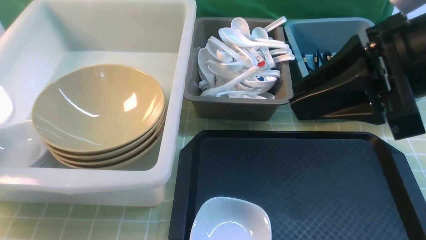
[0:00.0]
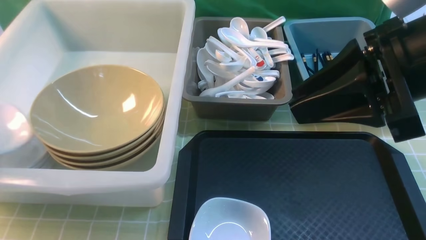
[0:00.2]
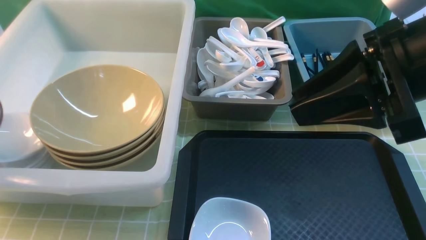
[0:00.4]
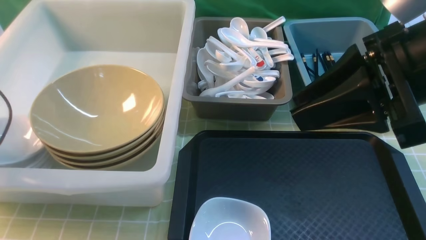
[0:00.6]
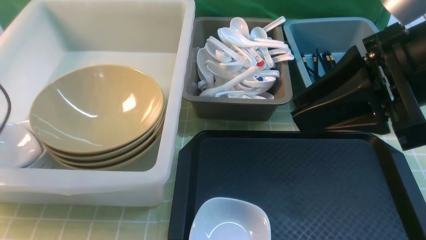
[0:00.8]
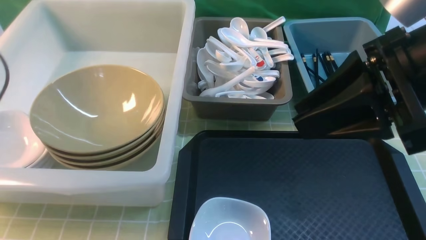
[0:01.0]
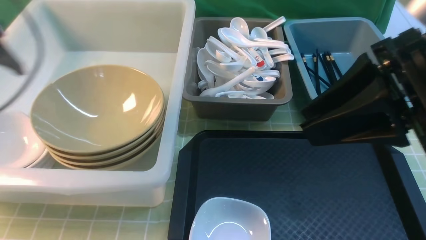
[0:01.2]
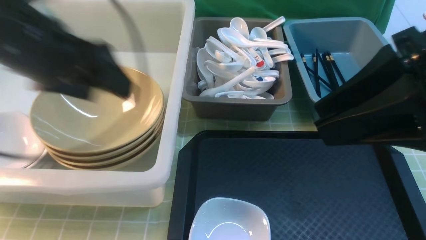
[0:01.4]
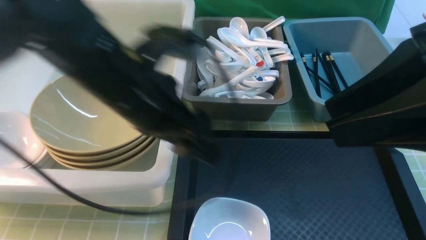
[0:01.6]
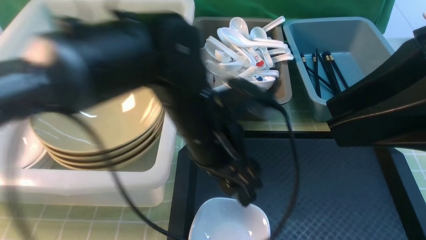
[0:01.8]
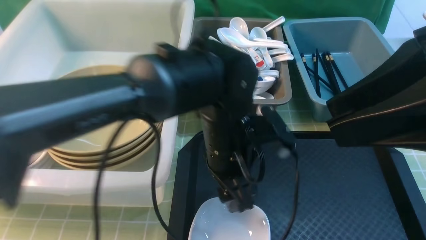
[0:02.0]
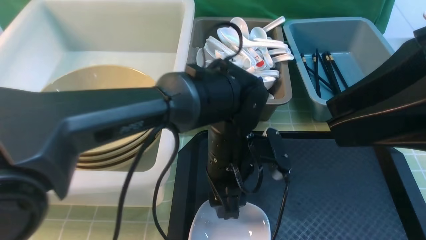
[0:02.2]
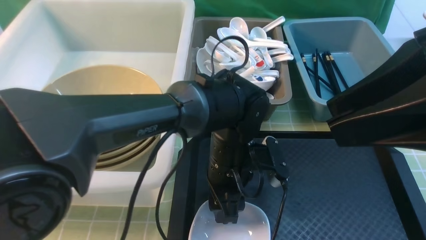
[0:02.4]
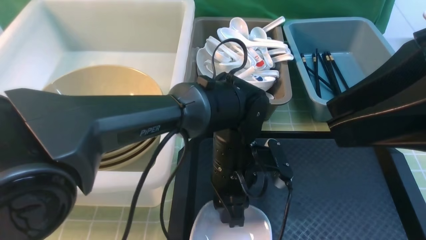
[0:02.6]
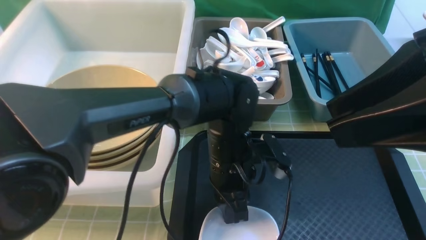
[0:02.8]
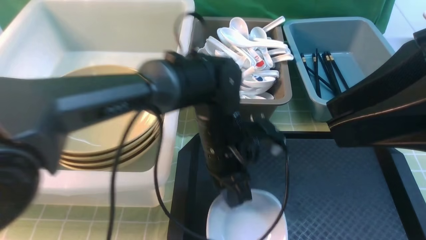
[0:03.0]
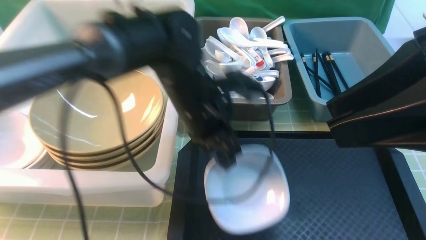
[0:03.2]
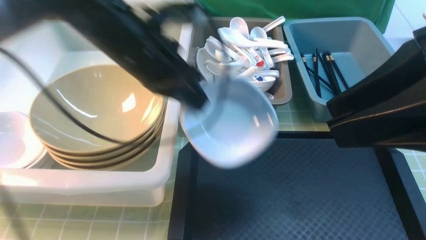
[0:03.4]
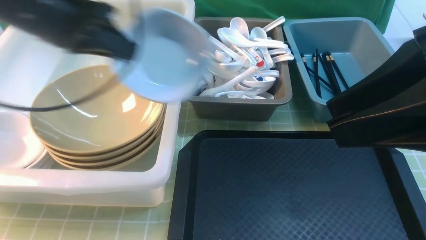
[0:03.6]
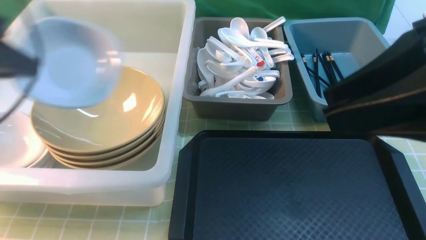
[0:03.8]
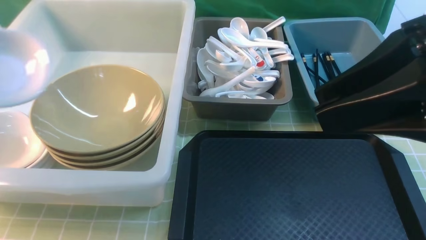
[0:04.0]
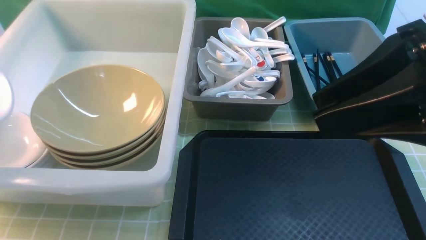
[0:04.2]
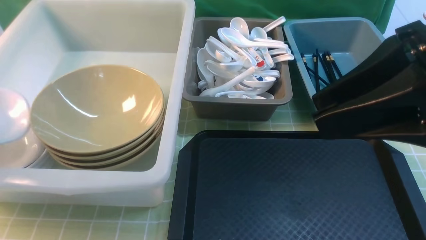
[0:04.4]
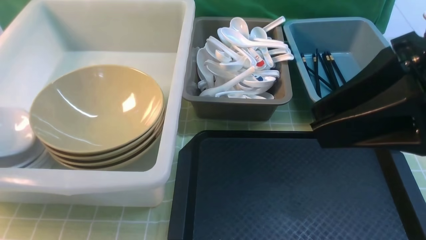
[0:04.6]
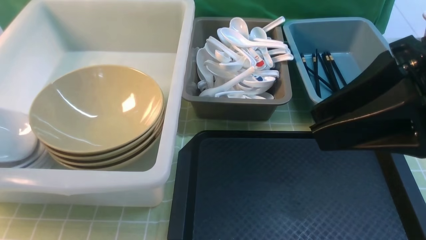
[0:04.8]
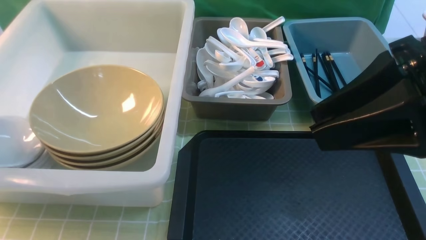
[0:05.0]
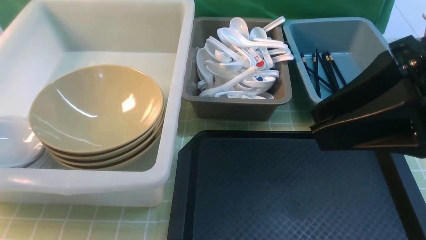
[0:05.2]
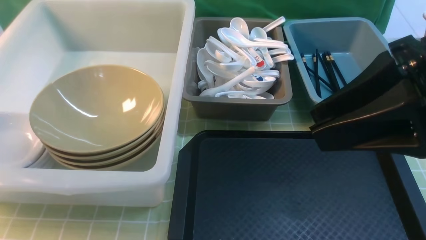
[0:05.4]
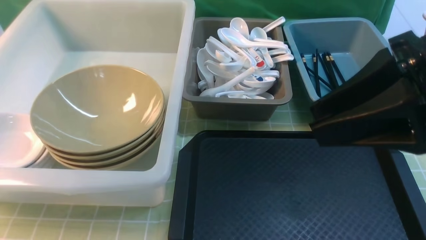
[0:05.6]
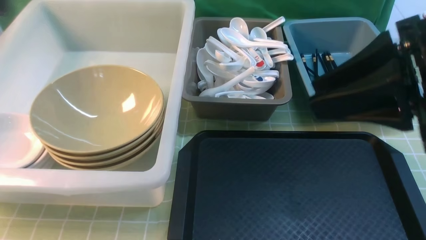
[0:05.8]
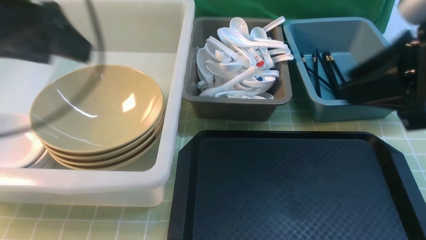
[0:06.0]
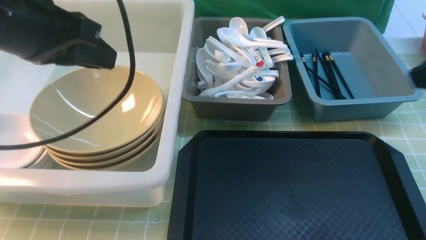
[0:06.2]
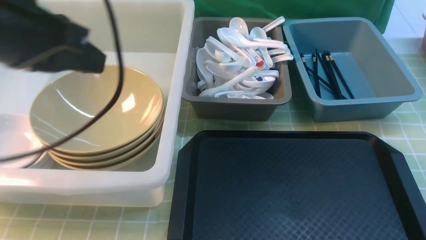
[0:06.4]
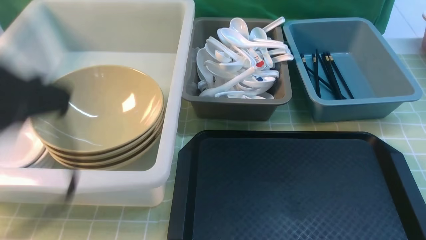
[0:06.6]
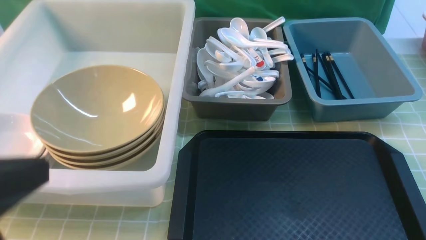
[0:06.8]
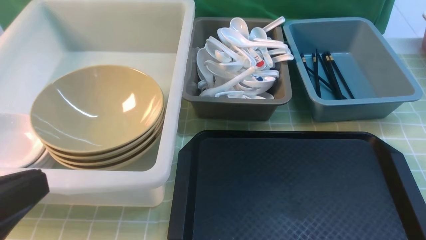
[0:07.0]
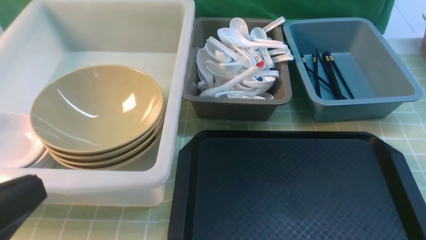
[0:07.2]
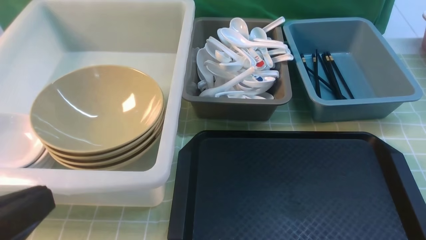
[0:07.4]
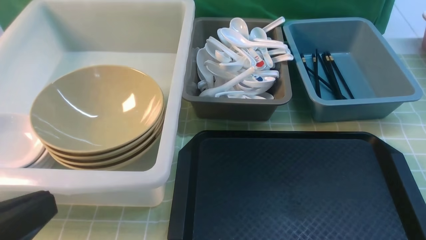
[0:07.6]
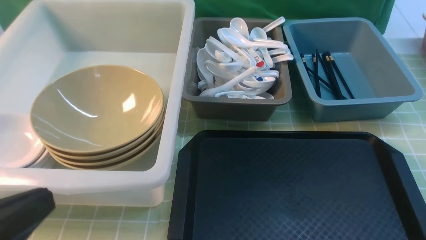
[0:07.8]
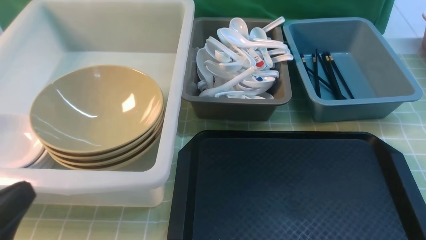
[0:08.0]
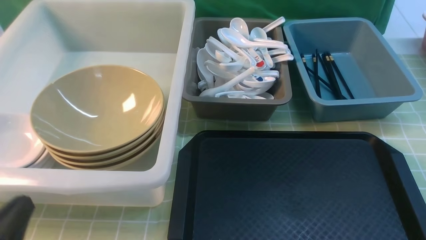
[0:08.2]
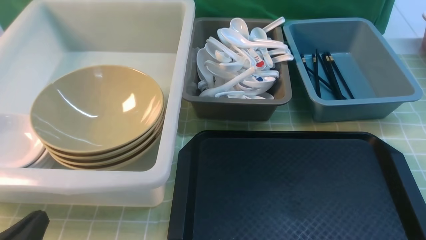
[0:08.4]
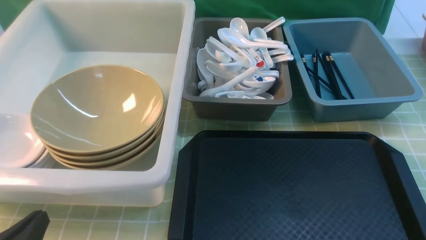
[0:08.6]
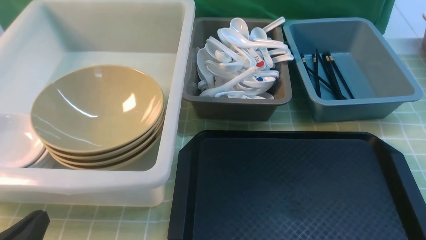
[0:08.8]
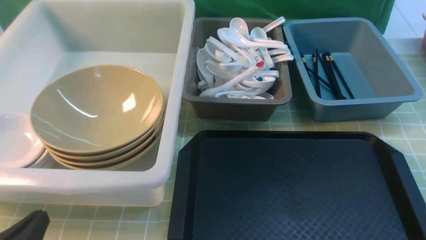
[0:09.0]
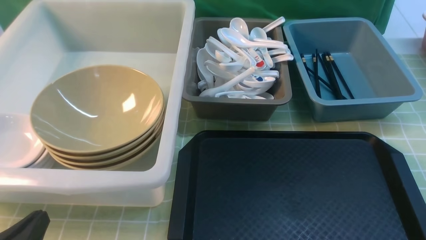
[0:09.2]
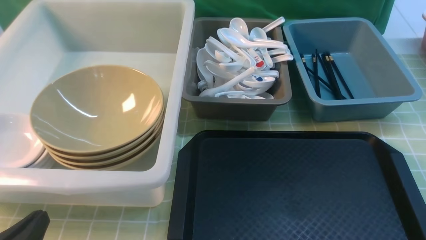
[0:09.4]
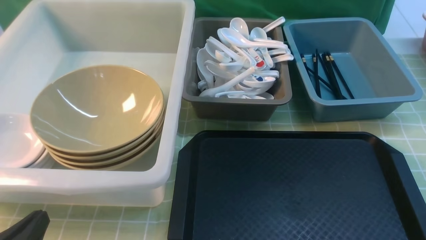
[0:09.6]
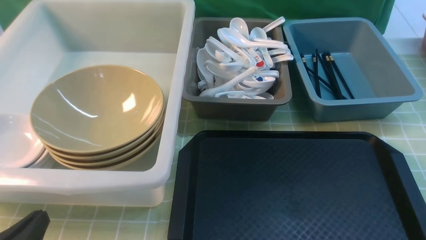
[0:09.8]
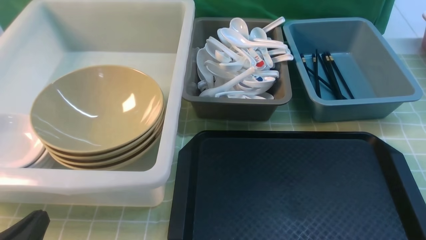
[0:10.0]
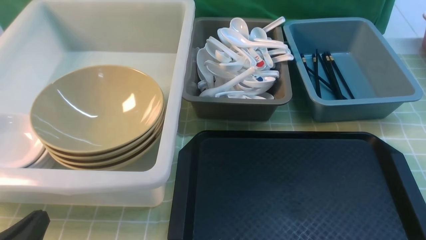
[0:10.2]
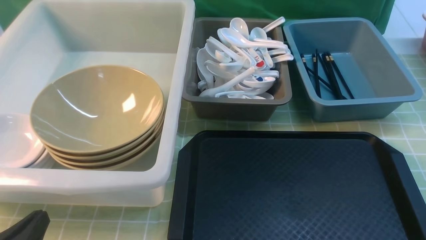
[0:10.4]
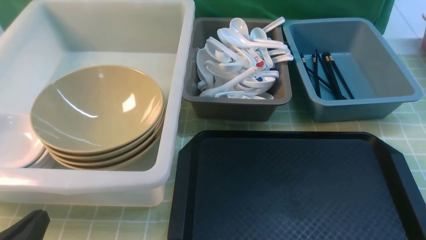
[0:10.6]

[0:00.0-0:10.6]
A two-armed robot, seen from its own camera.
Task of the whole recording: on green table put chopsticks spoon bowls plates into blue grey white boxes.
Step, 0:00.0 to 0:01.0: use the left arm to put the plate into the large storage box on the left.
Step, 0:01.2 to 0:03.0: use the left arm to grab the plate.
Step, 0:03.2 to 0:05.2: use the left arm to put the plate into the large storage box on the left.
0:00.0 to 0:01.6: The left gripper moves to the right, approximately 30 cm, and opens.
0:01.6 to 0:03.0: The left gripper is displaced downward and to the right by roughly 20 cm, and closes up.
0:03.0 to 0:04.6: The left gripper is displaced to the left by about 40 cm.
0:04.6 to 0:06.0: The left gripper shifts about 20 cm to the right and upward, and opens.
0:06.0 to 0:07.6: The left gripper travels backward and downward by some 25 cm, and closes, while the right gripper goes roughly 20 cm backward, downward and to the right, and closes.
0:07.6 to 0:09.0: The left gripper goes approximately 15 cm downward.

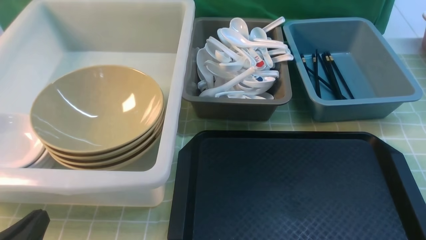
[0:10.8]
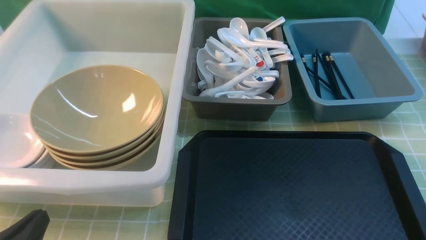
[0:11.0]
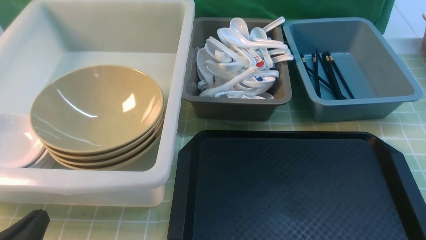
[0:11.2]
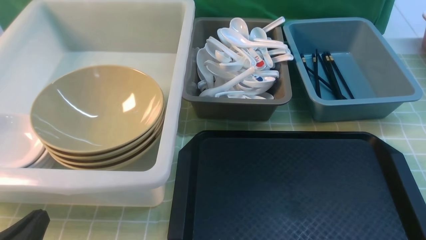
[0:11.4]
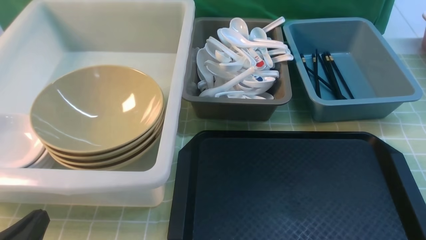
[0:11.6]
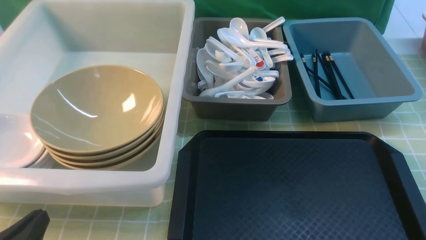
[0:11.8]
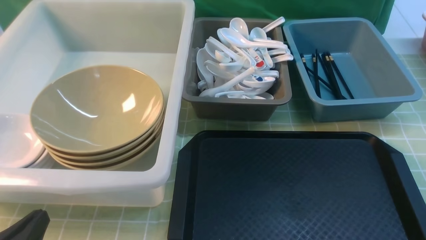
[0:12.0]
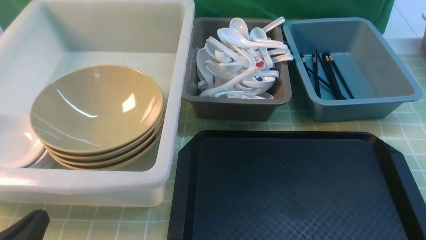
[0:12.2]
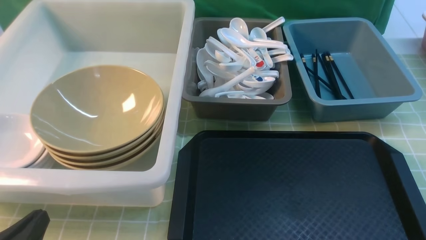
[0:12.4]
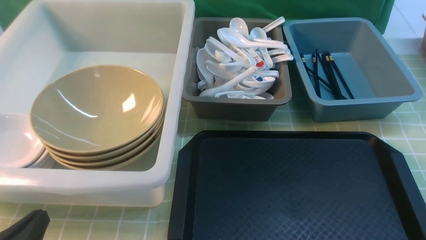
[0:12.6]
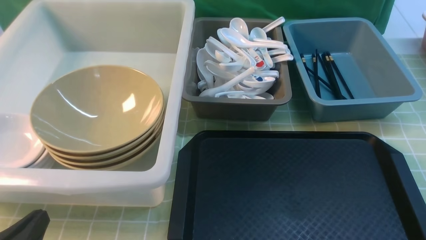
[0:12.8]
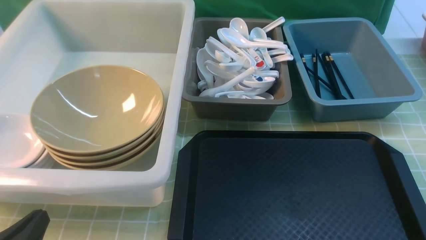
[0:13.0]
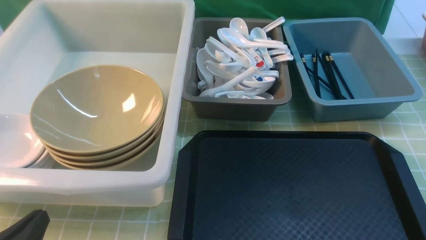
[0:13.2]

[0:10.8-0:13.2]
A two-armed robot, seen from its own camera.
Task of the whole recording: on green table put chopsticks spoon bowls plates into blue grey white boxes.
0:10.8 to 0:13.2: Both grippers stay about where they are.

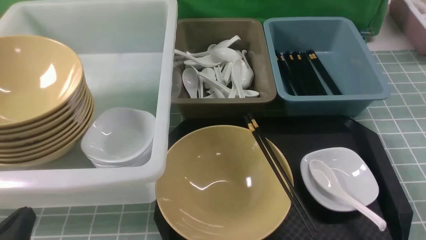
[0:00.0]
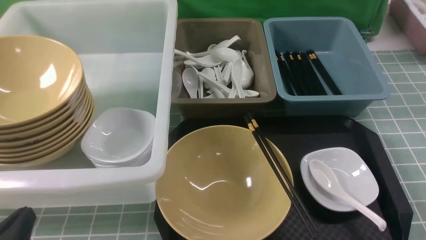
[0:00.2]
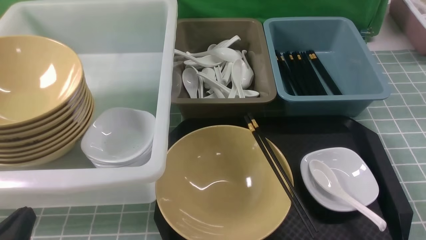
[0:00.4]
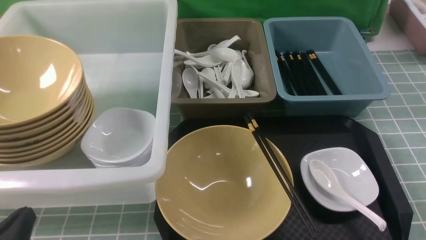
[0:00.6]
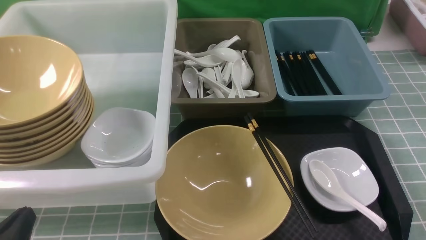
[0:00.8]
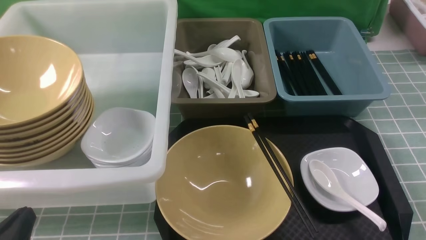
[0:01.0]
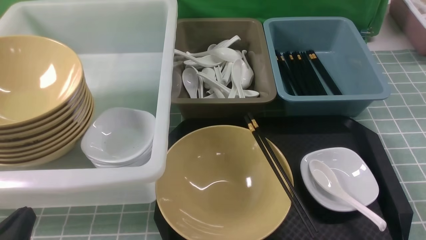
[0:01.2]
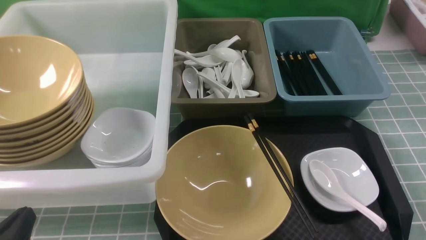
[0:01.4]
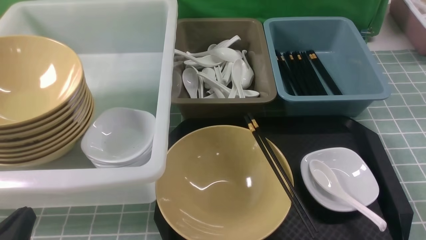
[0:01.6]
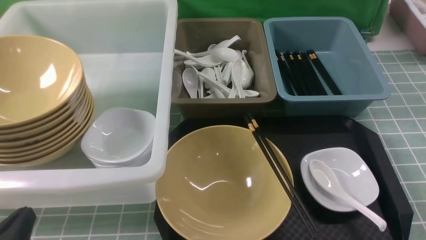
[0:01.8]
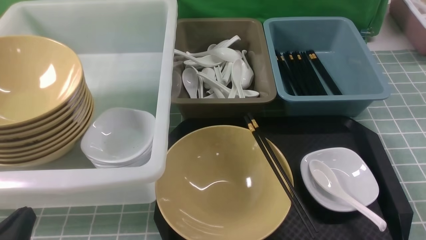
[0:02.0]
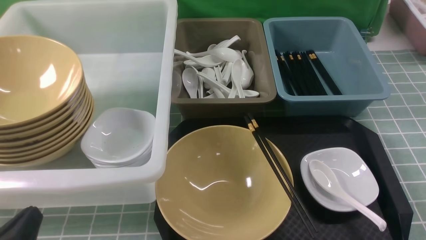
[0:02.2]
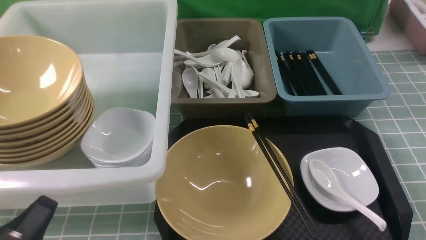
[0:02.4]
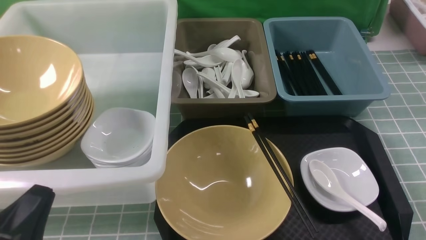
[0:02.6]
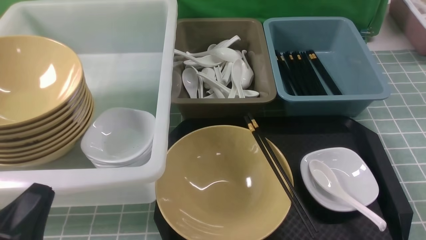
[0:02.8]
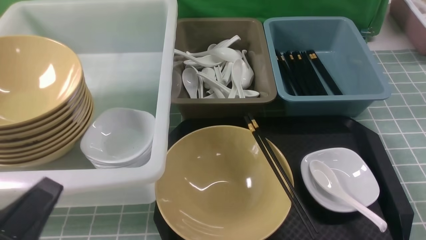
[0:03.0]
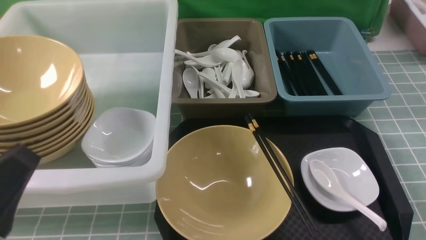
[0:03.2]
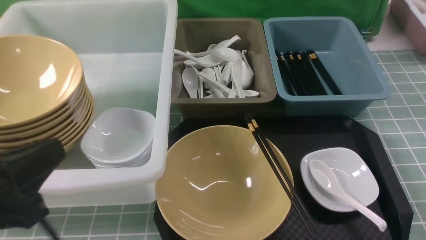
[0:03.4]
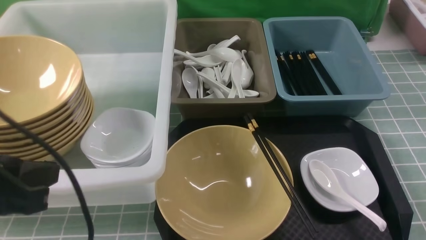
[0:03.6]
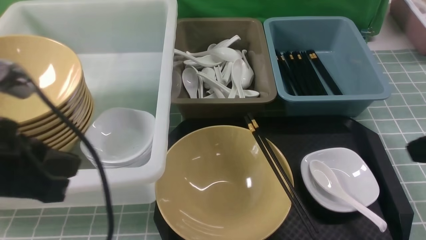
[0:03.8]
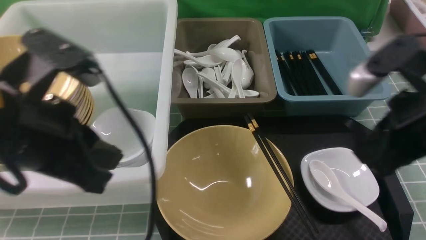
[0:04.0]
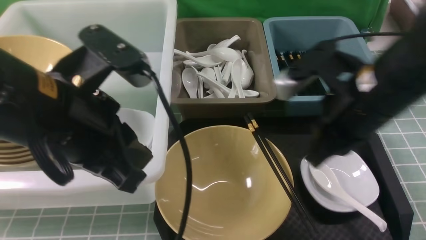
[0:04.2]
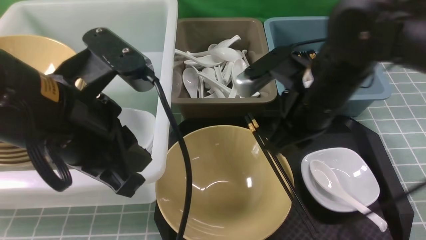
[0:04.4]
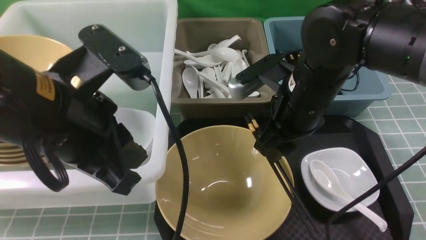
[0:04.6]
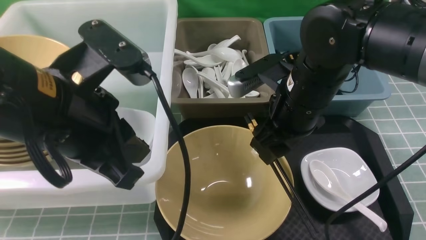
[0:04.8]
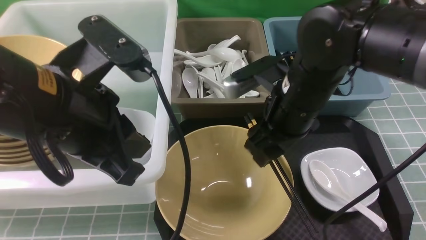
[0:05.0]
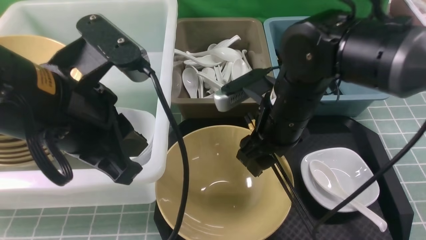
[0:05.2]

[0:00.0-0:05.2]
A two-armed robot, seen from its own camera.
Task of the whole recording: on blue table put chopsticks spoon bowls plates into blue grey white boxes.
0:00.0 to 0:01.8: Both grippers stay about where they are.
0:01.8 to 0:03.4: The left gripper is displaced upward by some 15 cm.
0:03.4 to 0:05.2: The right gripper moves forward and to the left, approximately 30 cm, and opens up. Meanwhile the left gripper travels forward and to the right by roughly 15 cm.
